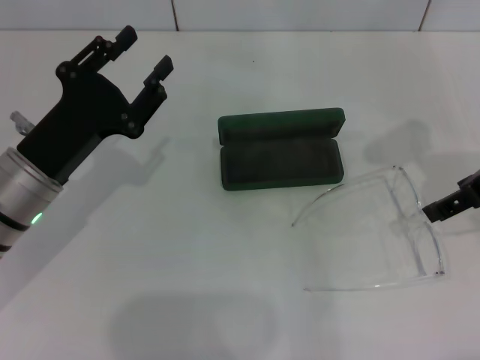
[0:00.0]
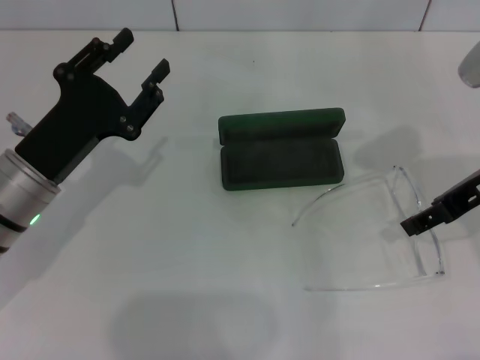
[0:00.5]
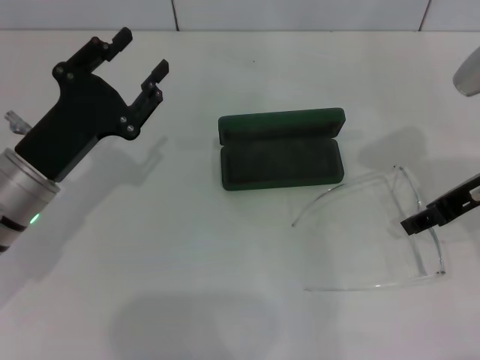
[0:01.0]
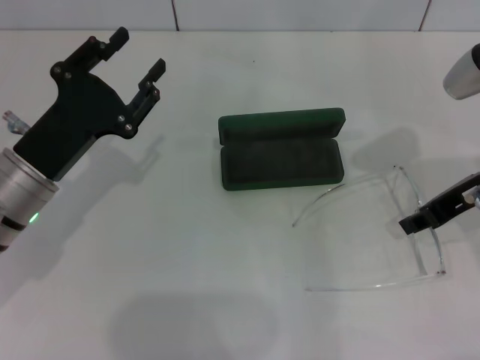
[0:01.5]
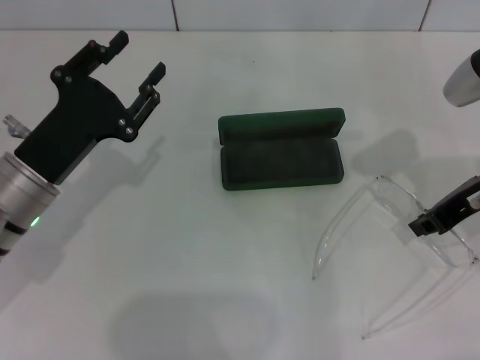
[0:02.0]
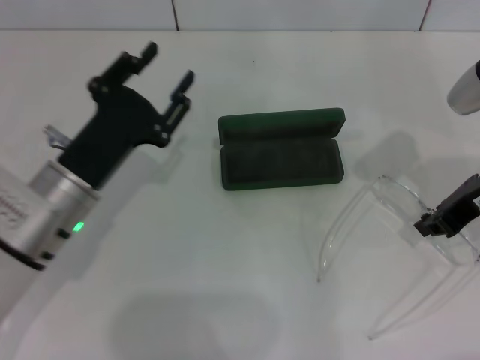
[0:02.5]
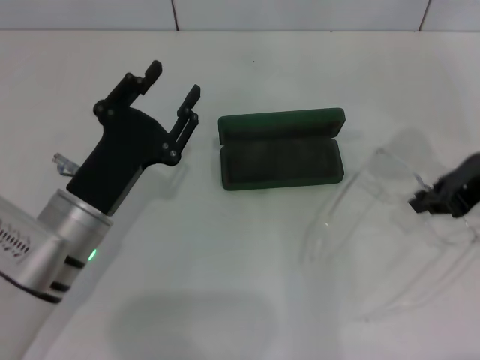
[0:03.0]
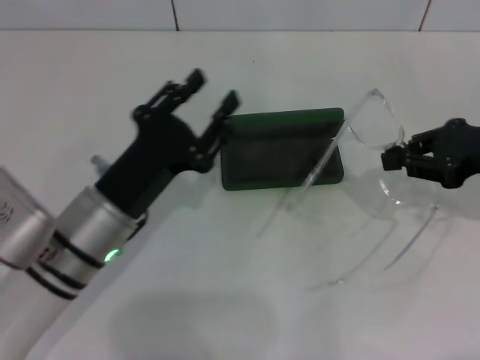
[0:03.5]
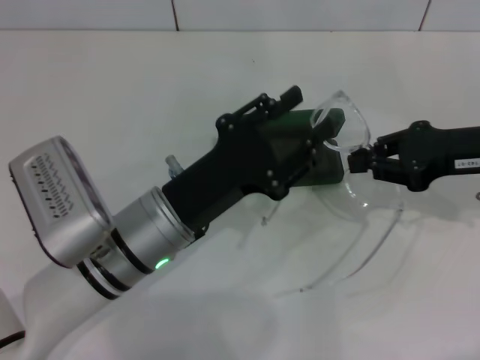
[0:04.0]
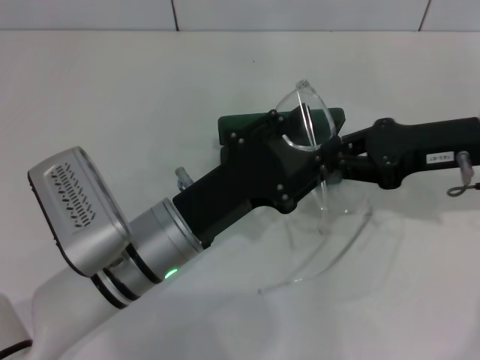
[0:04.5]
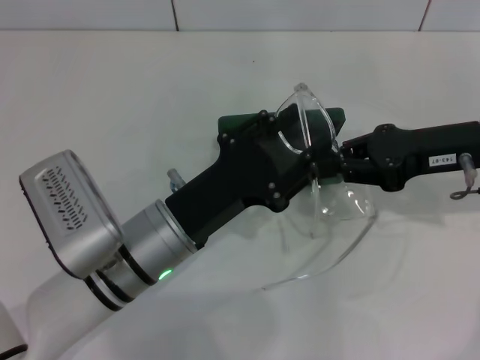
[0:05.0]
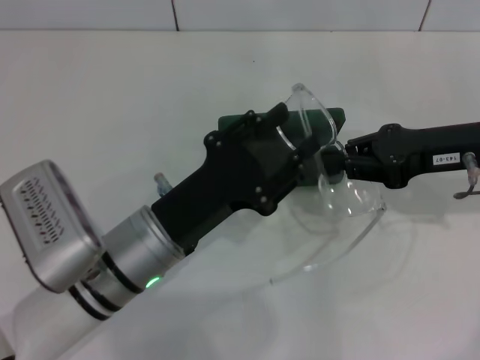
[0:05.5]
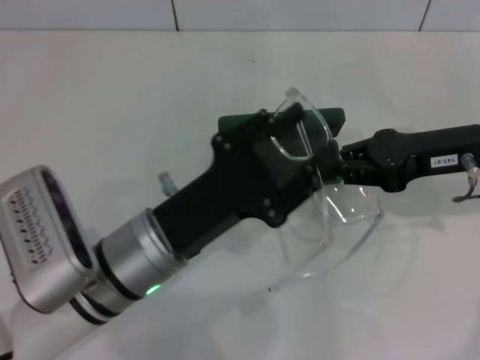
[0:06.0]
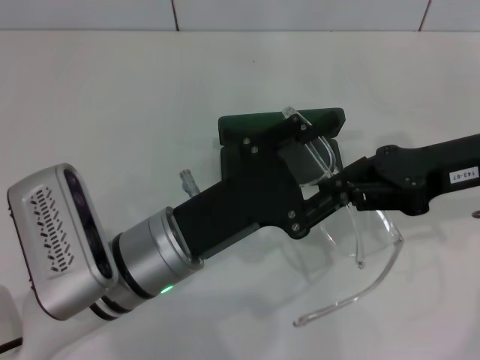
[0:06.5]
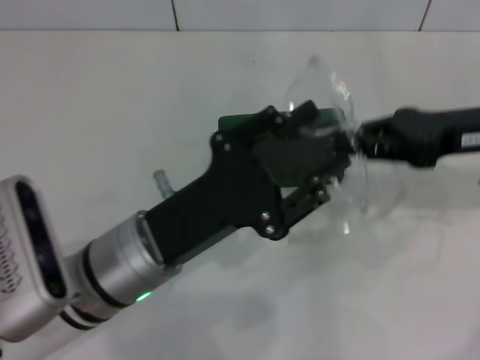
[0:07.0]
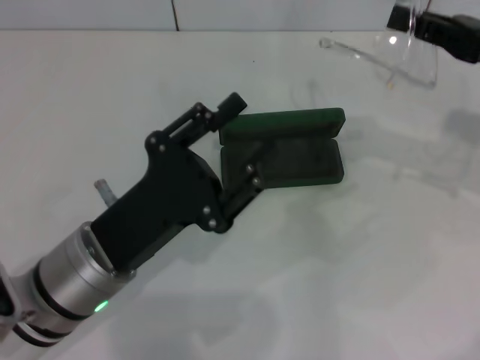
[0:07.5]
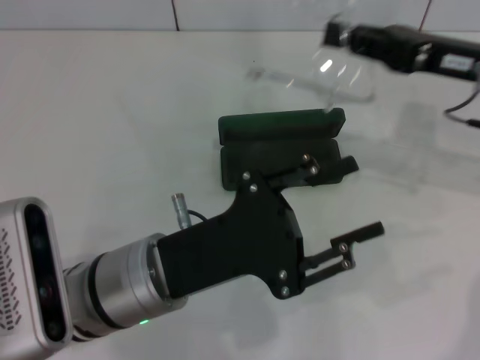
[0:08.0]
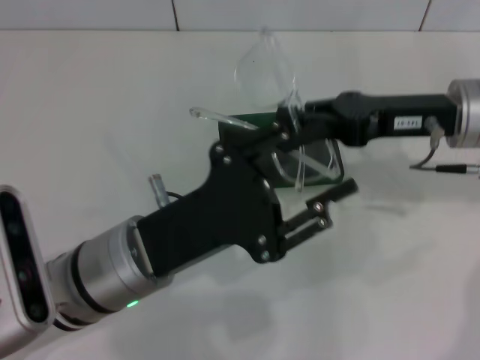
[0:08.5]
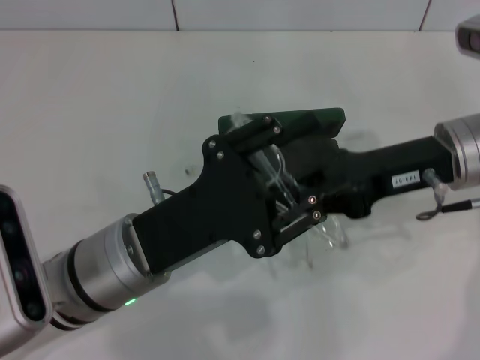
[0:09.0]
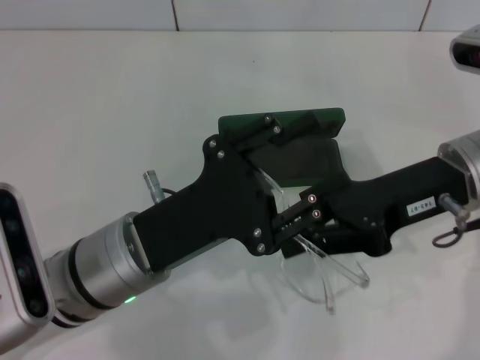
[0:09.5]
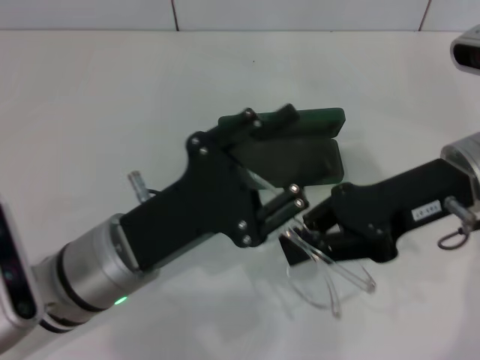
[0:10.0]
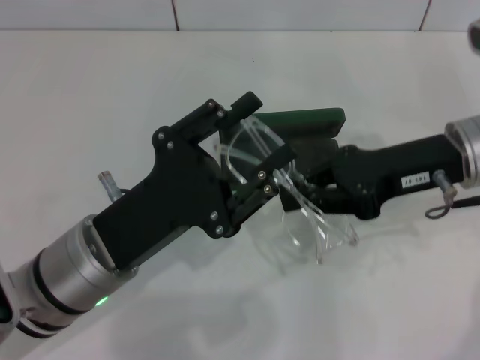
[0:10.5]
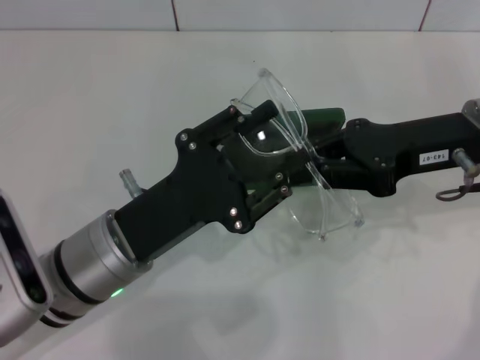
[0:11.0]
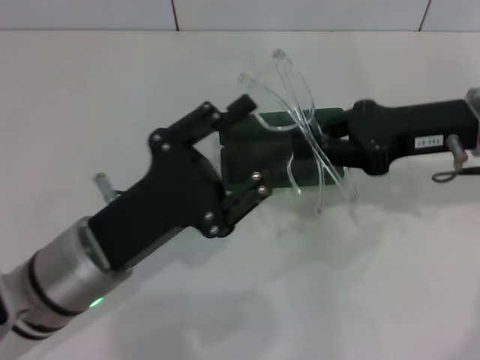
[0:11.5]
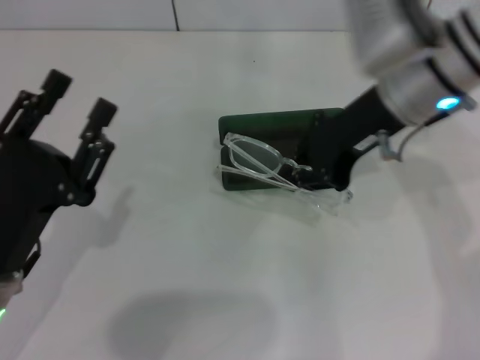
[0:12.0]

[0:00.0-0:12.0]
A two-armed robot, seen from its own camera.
Step, 0:00.0 to 0:02.5: Grab the eyeglass frame with your right hand.
Step, 0:03.0 to 0:10.5: Fold the frame with your left hand.
0:00.0 to 0:02.0: The right gripper changes place by about 5 cm, and closes its fingers.
0:02.0 to 0:04.0: The left gripper is displaced to the right by approximately 10 cm.
0:04.0 to 0:06.0: The grippers make only small movements.
0:08.0 to 0:10.0: The right gripper changes place by about 5 cm.
0:10.0 to 0:12.0: The right gripper travels to the left and forward by about 10 cm. Meanwhile the left gripper goes roughly 10 cm to the left.

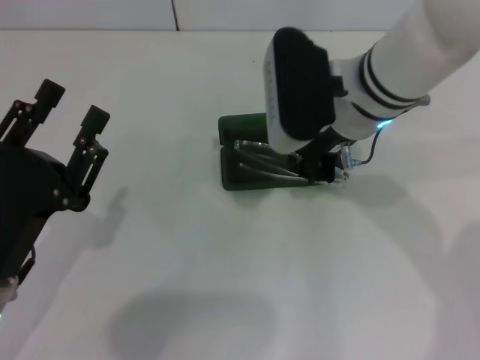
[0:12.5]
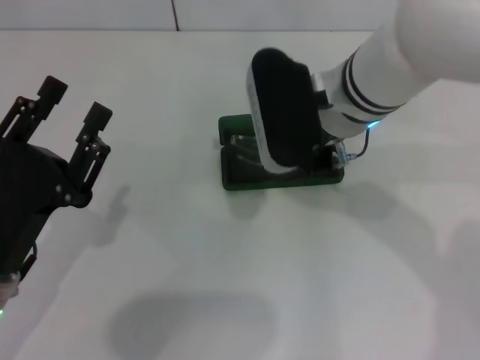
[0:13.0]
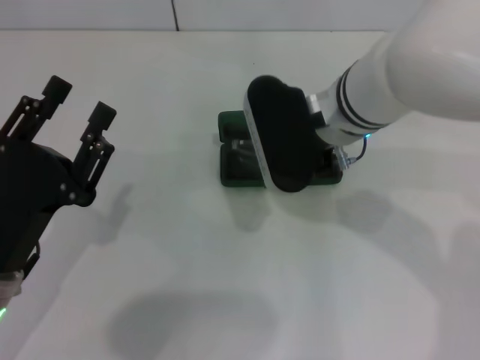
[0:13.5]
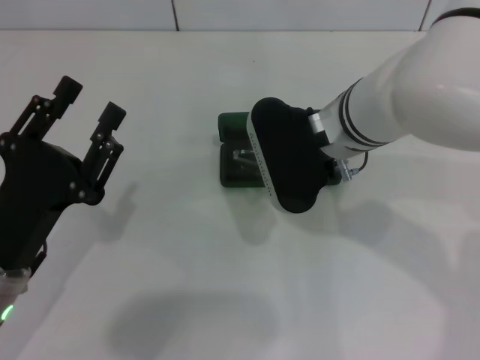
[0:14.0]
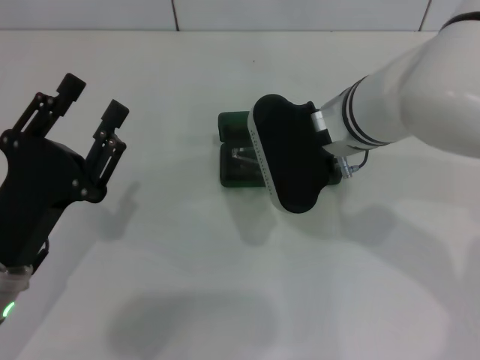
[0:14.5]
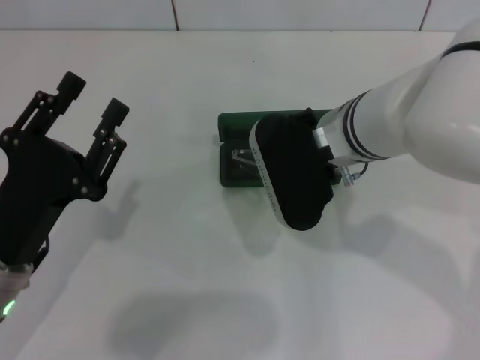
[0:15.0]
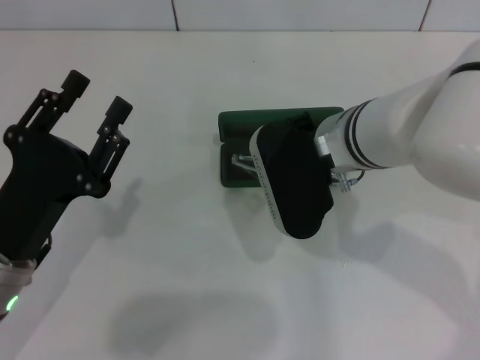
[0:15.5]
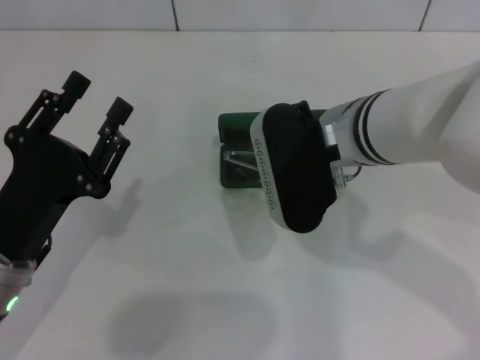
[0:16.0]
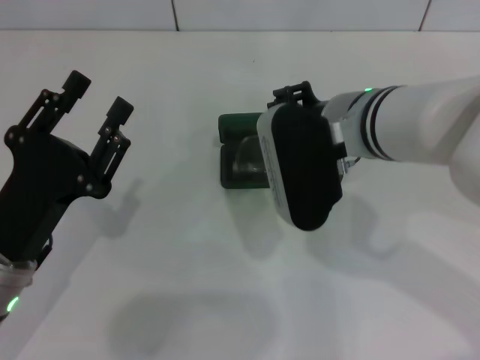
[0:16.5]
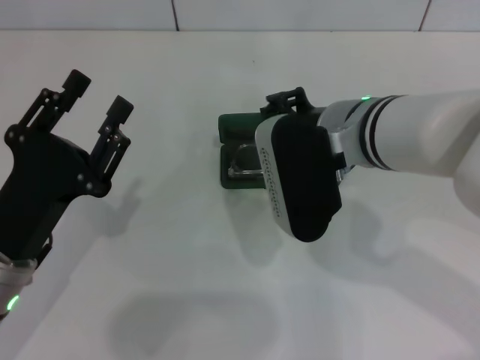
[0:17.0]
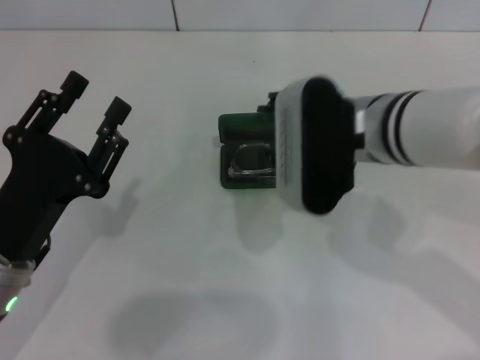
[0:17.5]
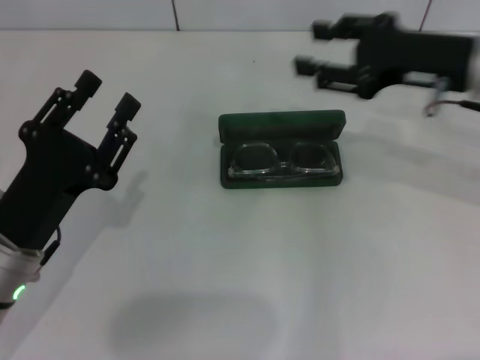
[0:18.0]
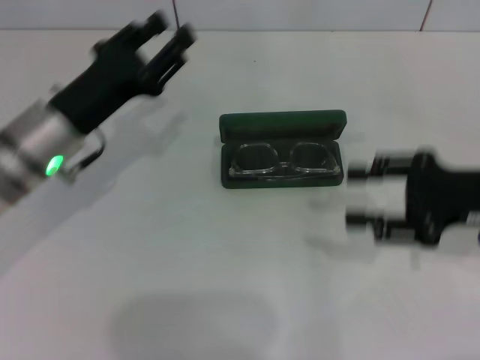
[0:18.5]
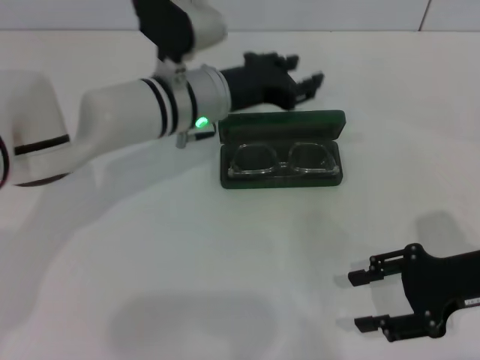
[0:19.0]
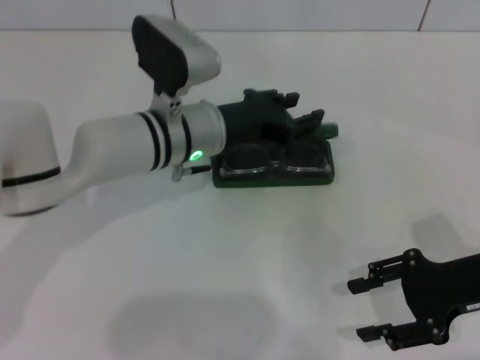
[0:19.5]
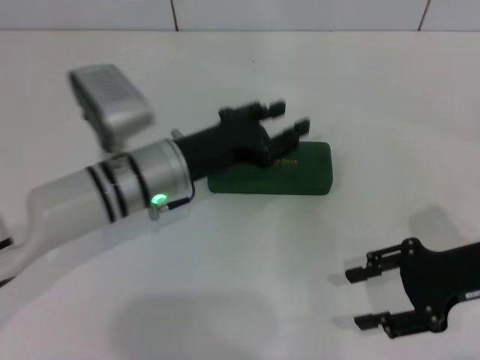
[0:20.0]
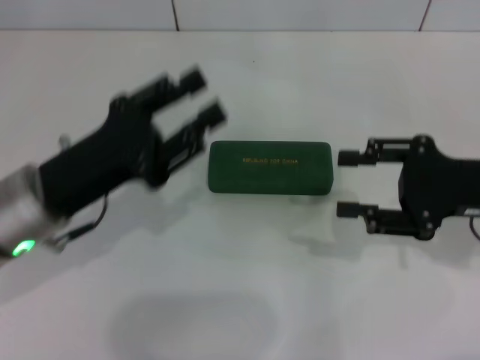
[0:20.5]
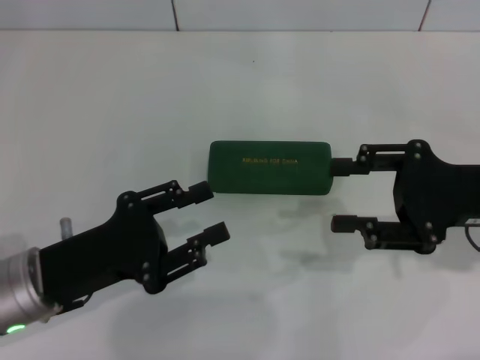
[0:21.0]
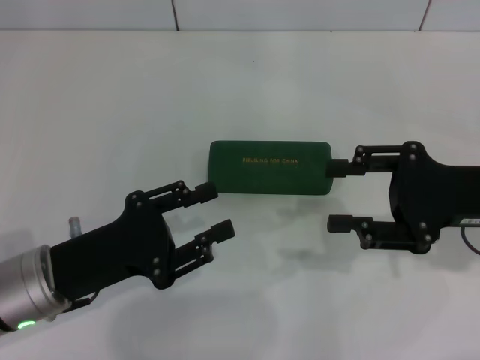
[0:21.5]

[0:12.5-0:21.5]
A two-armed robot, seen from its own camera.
Step, 0:12.5 to 0:16.5: Put the glasses into the case with your right hand.
Step, 0:17.0 to 0:19.5: Close the glasses case with your left hand.
0:14.5 to 0:17.0: The right gripper opens up.
0:17.0 to 0:19.5: The right gripper heads to the right and downward, covering some 20 cm. The left gripper shifts some 20 cm forward and to the right.
0:19.5 to 0:21.5: The right gripper travels upward by roughly 5 cm. Meanwhile the left gripper heads backward and to the left, covering approximately 20 cm.
